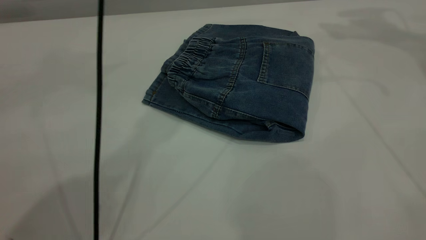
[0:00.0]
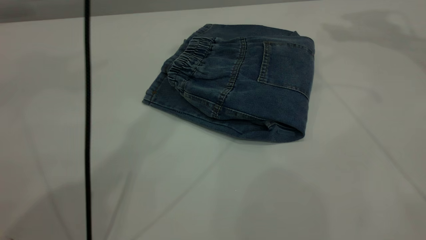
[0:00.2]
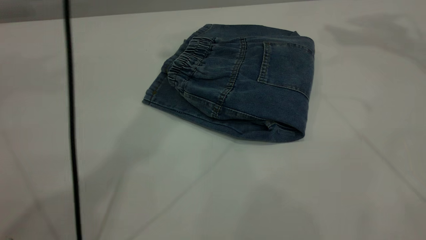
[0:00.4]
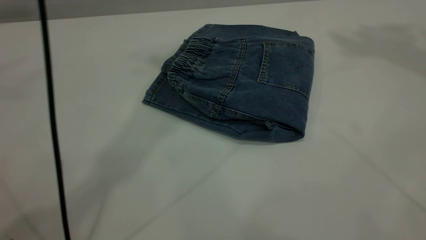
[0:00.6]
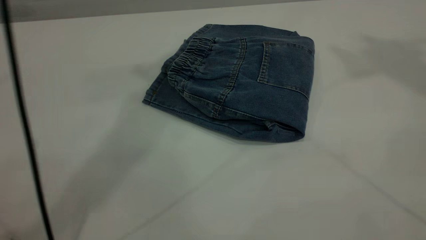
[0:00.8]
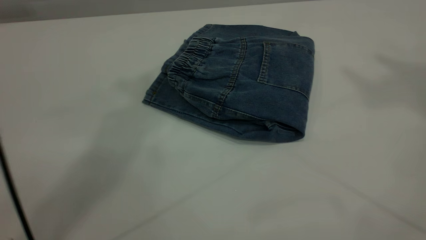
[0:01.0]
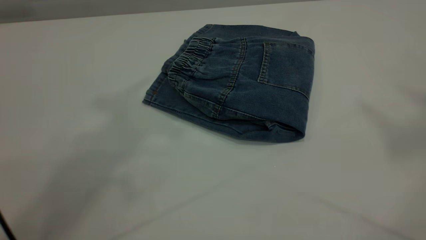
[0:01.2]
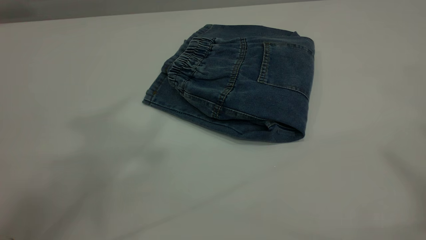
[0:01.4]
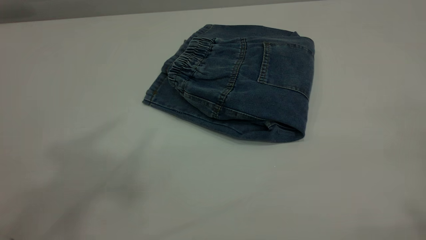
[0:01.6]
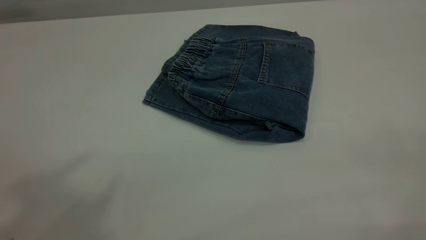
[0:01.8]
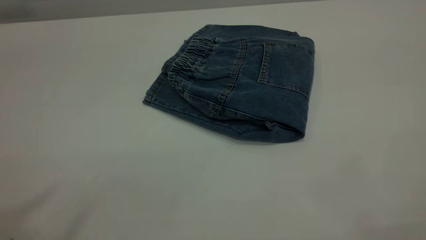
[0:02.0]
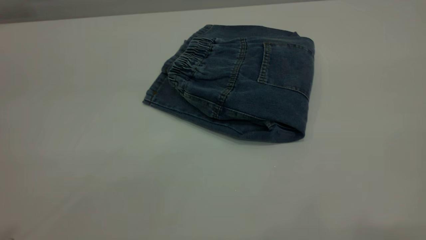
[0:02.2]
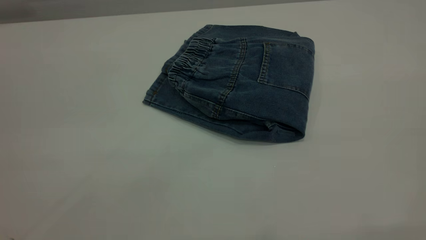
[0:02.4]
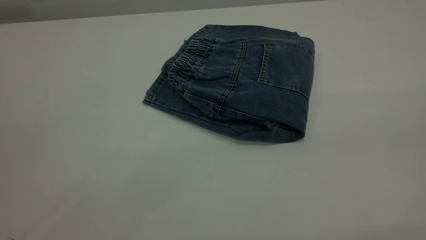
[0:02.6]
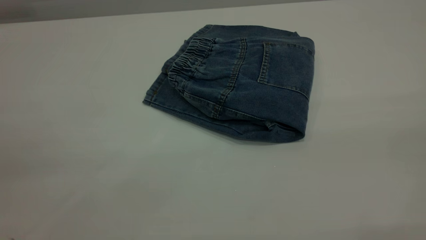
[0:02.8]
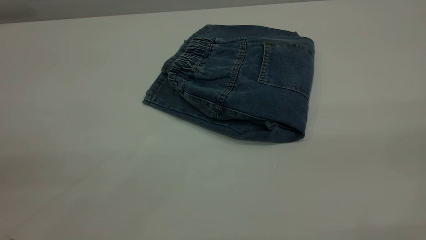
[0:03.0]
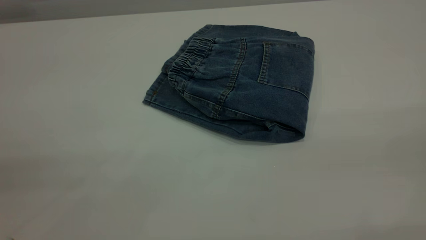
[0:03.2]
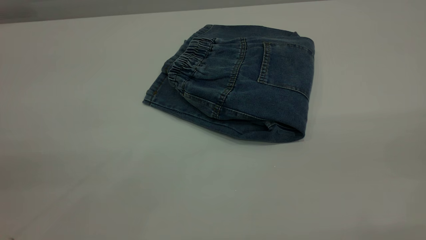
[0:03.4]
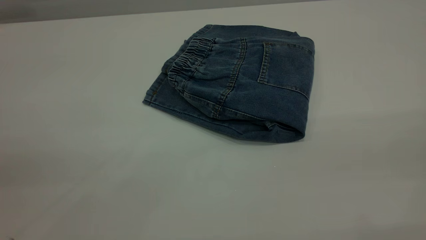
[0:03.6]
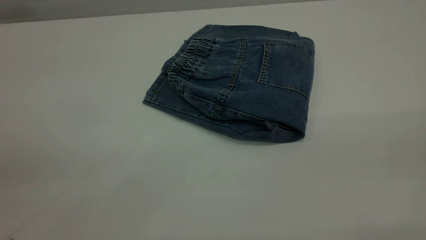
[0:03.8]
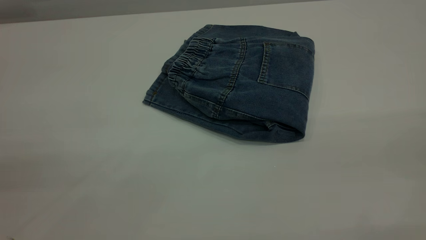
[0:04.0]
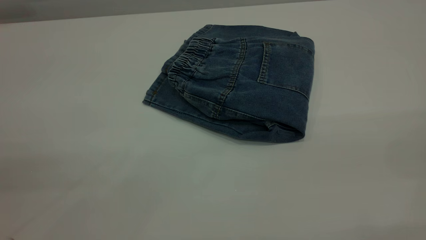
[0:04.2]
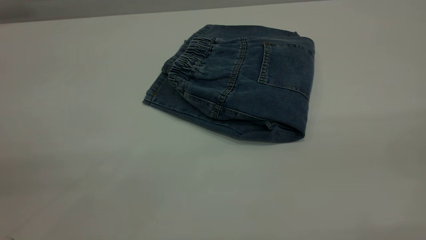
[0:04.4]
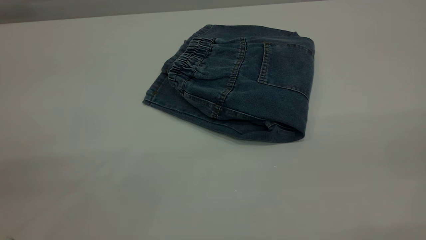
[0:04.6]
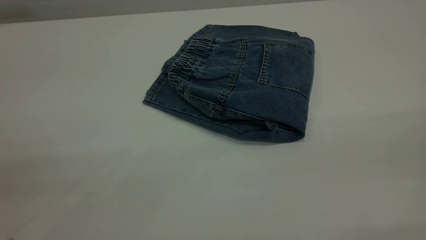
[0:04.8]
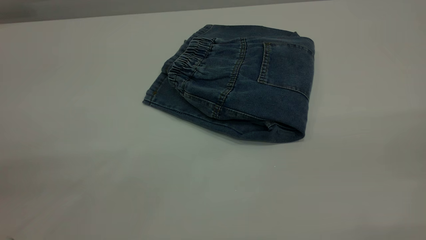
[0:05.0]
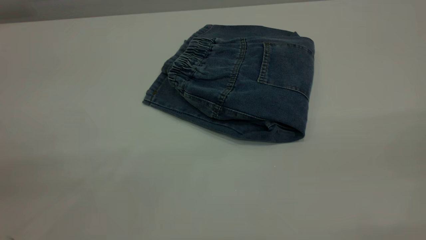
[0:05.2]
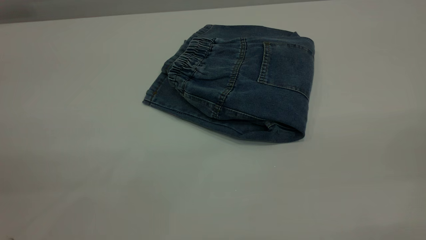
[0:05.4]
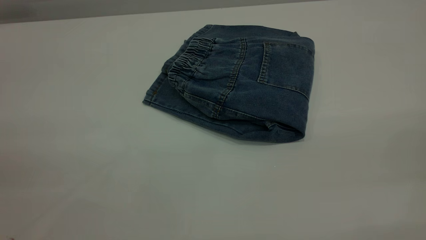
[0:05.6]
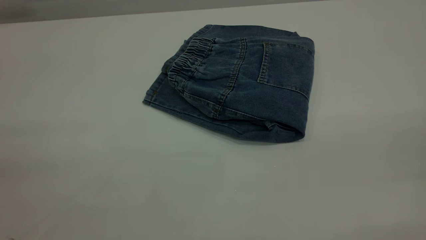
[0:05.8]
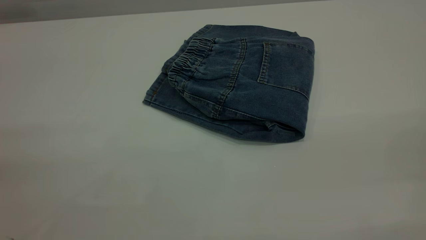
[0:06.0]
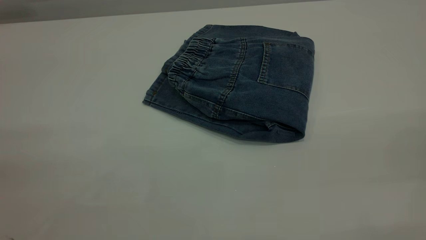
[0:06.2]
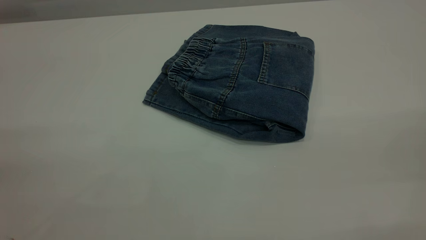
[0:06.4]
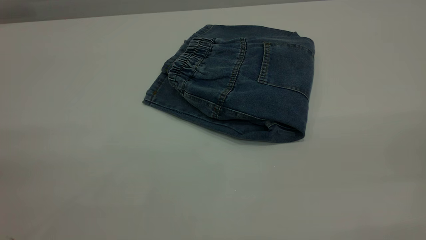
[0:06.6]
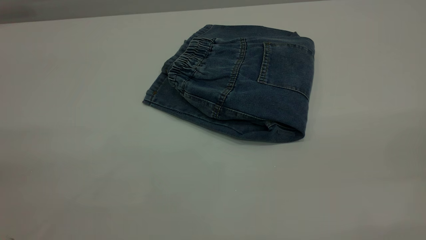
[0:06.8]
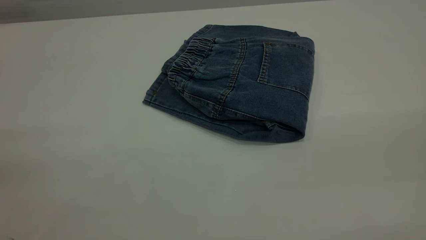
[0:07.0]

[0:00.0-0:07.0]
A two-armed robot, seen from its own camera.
0:00.0 to 0:01.4: The left gripper goes some 35 cm upward, backward and to the left.
